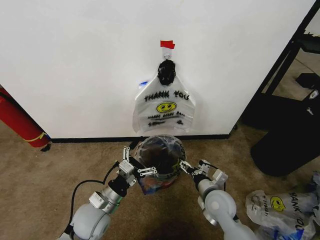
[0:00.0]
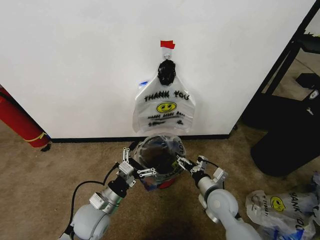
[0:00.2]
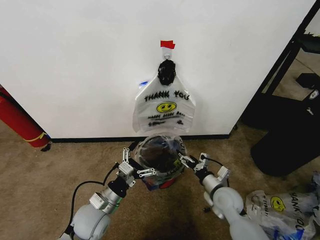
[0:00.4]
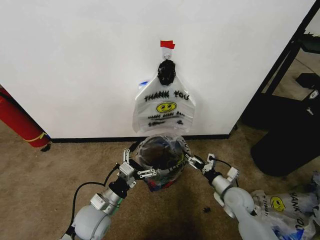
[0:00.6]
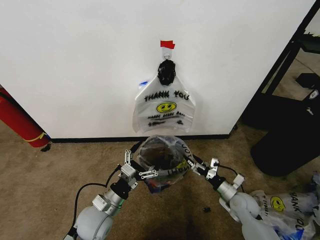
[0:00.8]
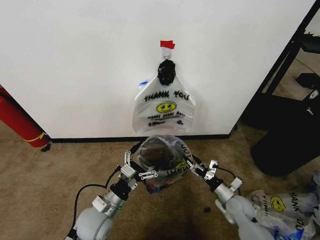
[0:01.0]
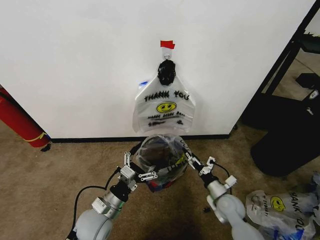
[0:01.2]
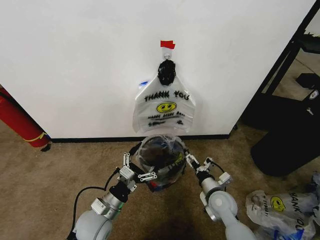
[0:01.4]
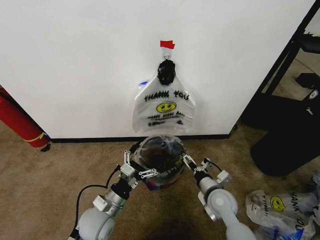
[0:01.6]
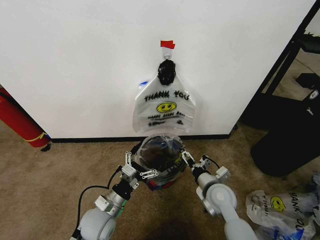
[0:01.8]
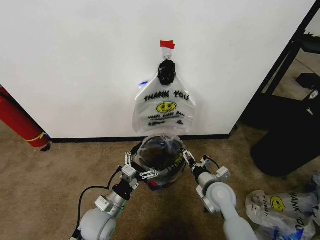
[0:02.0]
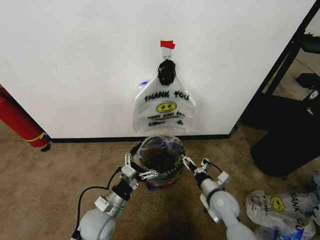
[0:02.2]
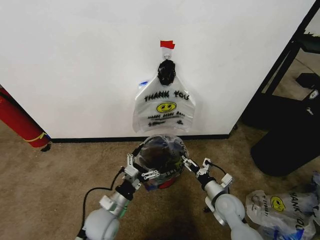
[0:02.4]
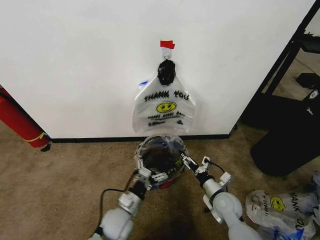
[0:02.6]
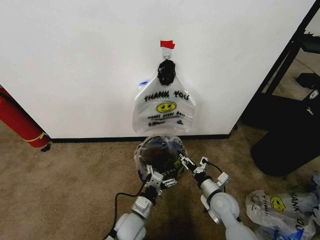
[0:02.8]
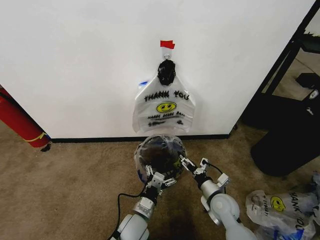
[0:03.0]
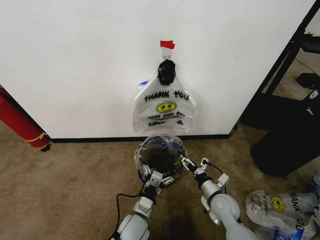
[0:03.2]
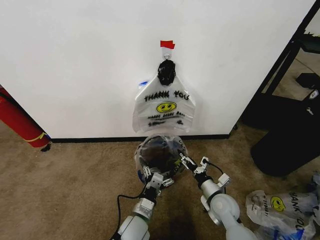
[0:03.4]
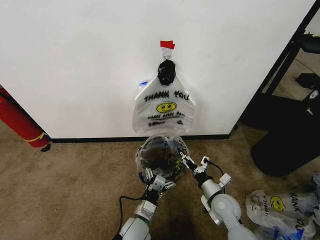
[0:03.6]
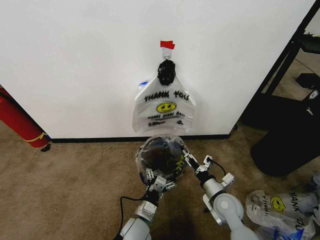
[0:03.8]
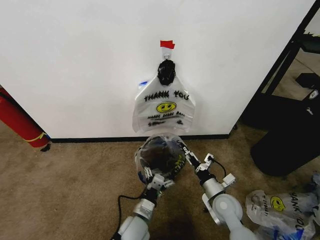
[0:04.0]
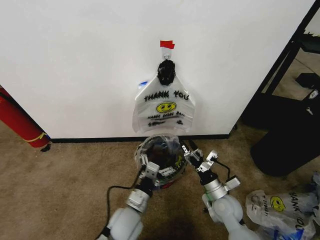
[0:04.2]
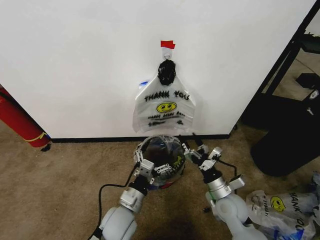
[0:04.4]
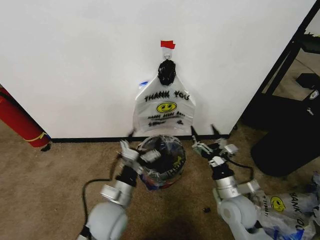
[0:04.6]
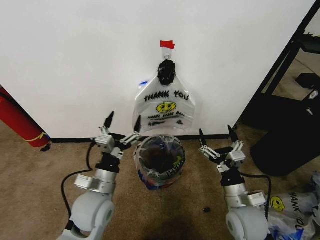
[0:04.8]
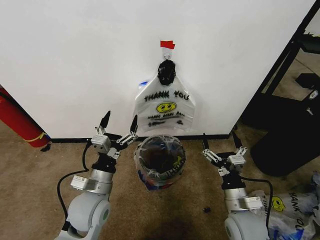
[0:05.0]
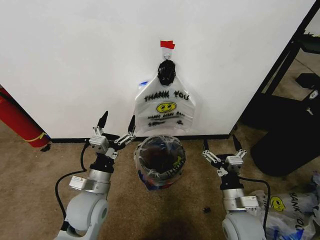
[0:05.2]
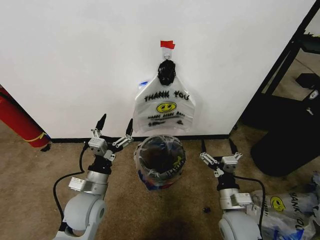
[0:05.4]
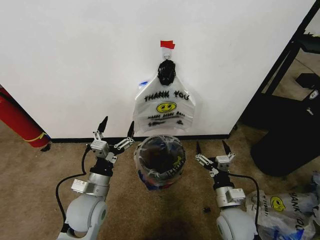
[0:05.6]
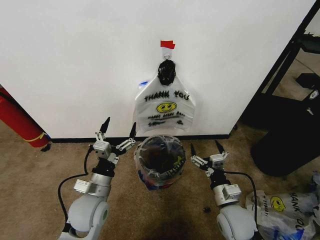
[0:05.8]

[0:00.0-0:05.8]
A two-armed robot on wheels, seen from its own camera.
Task of the whole recording: Pick up the garbage bag from the wall and place it over the trash bin.
0:00.0 to 0:01.4: The right gripper moves downward, approximately 5 cm, and moves roughly 10 cm to the right and comes back.
0:01.4 to 0:02.8: The left gripper heads to the right and downward, covering some 10 cm.
0:02.8 to 0:04.4: The left gripper heads upward, covering roughly 10 cm. The right gripper ends up about 5 cm from where it was.
0:04.4 to 0:05.8: The left gripper goes about 10 cm to the left and upward.

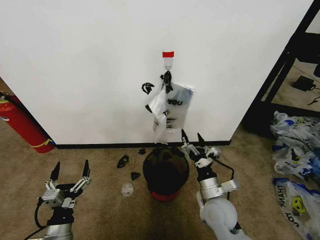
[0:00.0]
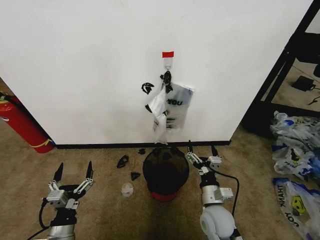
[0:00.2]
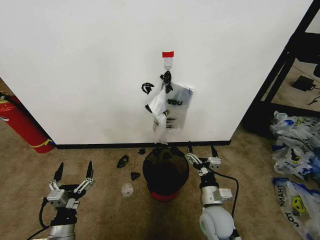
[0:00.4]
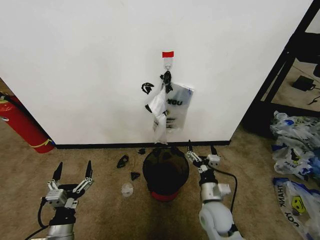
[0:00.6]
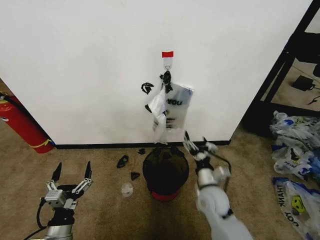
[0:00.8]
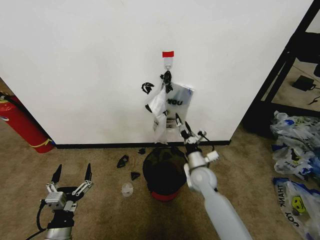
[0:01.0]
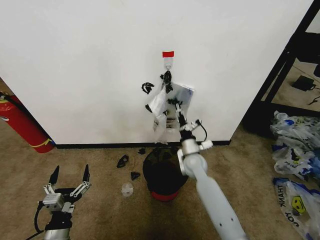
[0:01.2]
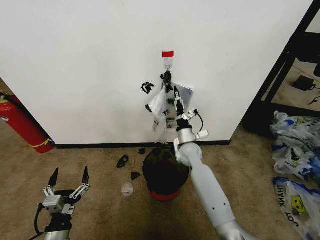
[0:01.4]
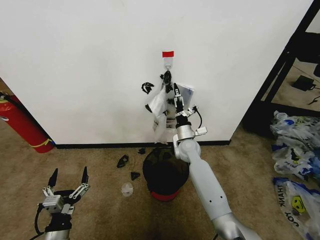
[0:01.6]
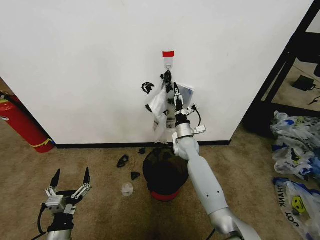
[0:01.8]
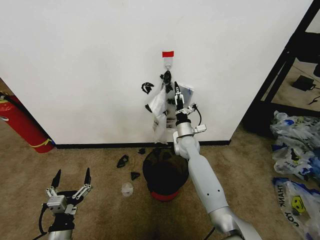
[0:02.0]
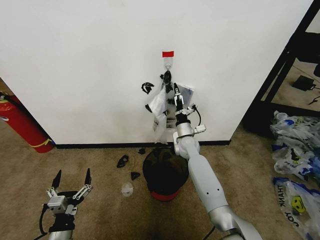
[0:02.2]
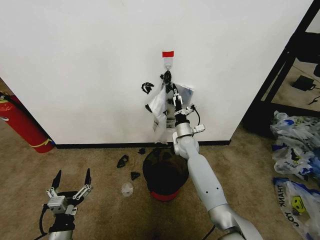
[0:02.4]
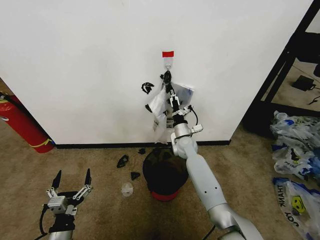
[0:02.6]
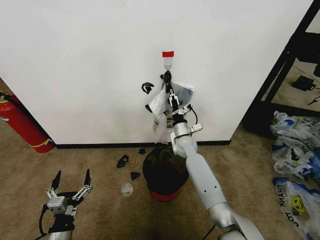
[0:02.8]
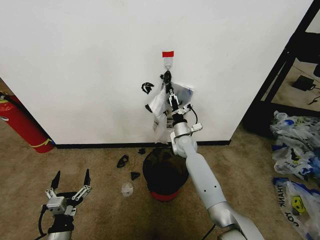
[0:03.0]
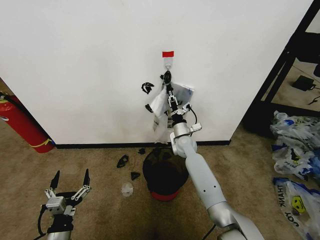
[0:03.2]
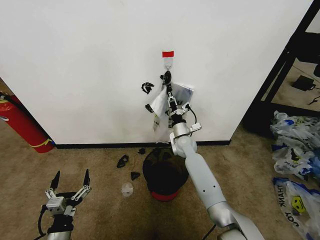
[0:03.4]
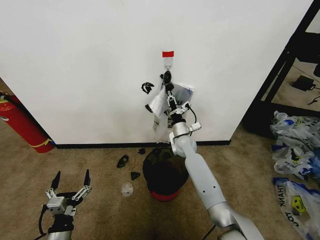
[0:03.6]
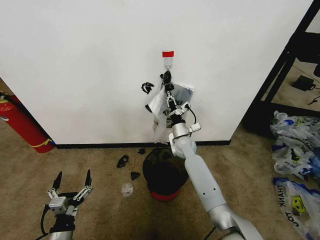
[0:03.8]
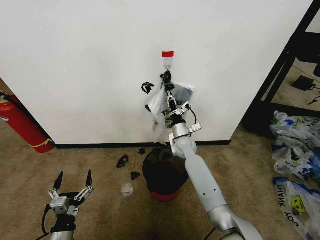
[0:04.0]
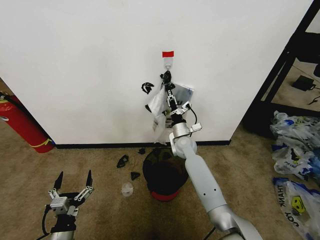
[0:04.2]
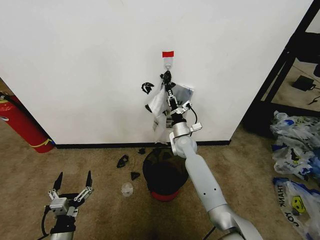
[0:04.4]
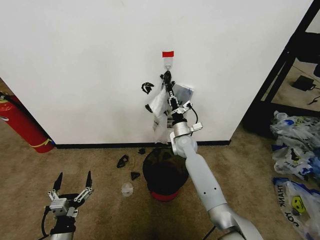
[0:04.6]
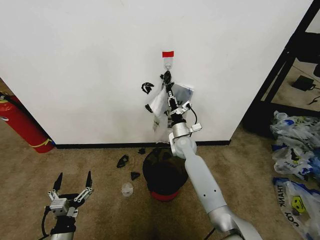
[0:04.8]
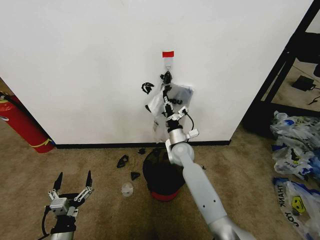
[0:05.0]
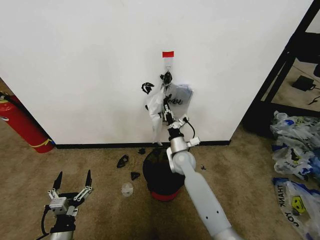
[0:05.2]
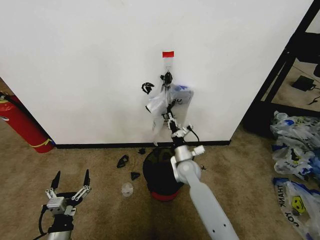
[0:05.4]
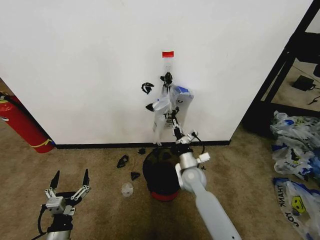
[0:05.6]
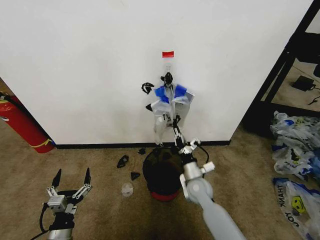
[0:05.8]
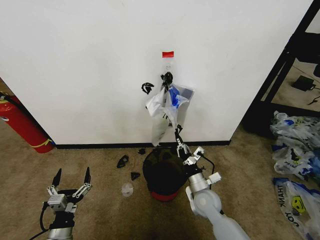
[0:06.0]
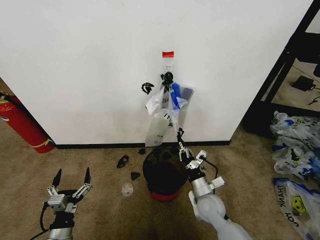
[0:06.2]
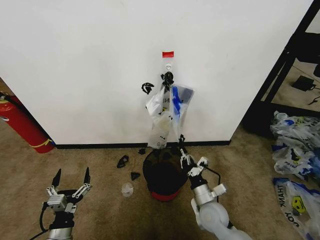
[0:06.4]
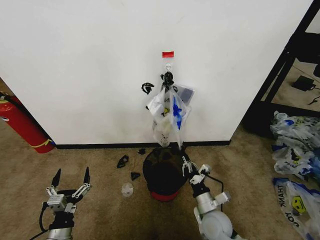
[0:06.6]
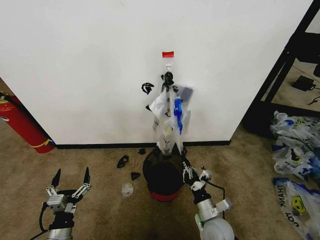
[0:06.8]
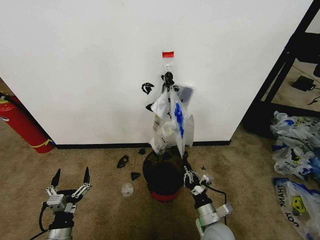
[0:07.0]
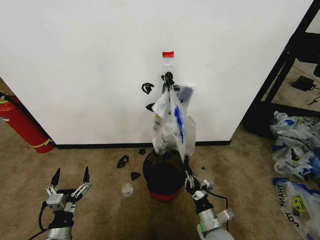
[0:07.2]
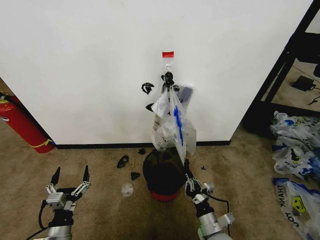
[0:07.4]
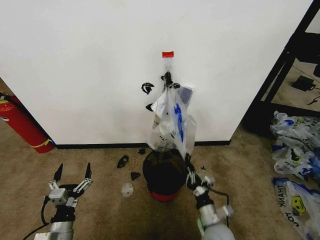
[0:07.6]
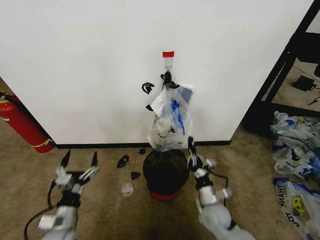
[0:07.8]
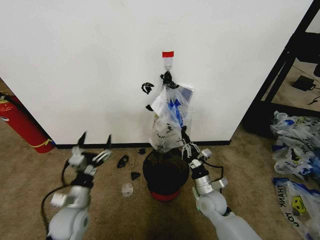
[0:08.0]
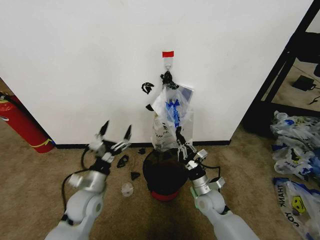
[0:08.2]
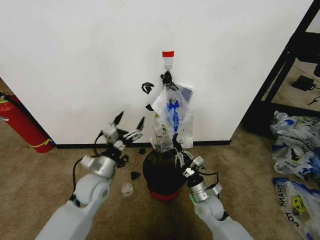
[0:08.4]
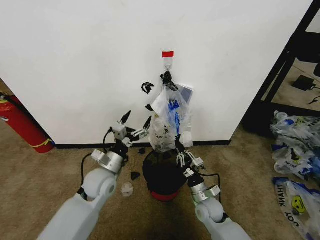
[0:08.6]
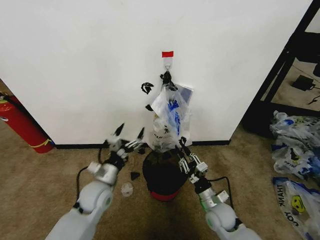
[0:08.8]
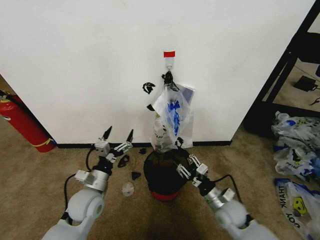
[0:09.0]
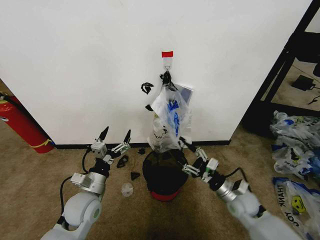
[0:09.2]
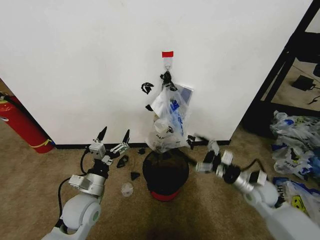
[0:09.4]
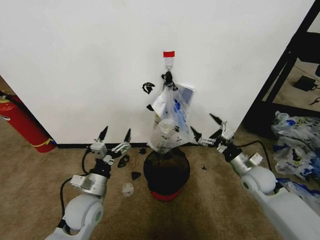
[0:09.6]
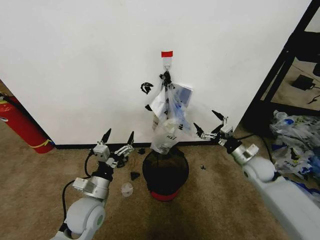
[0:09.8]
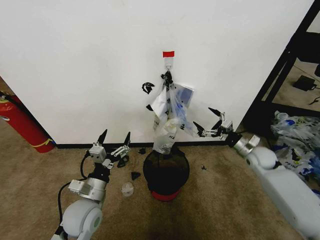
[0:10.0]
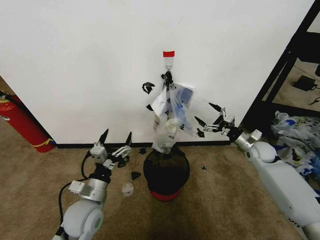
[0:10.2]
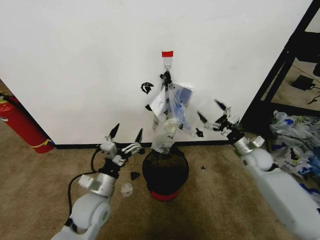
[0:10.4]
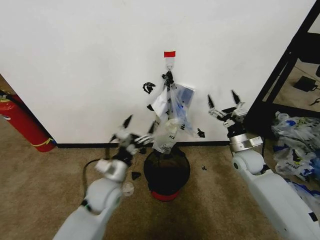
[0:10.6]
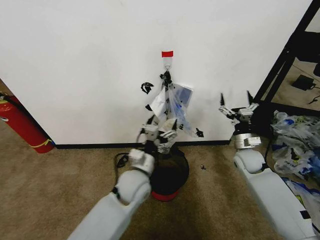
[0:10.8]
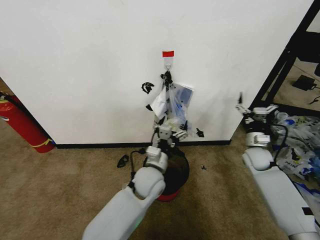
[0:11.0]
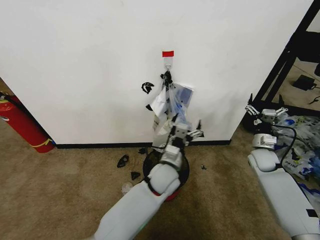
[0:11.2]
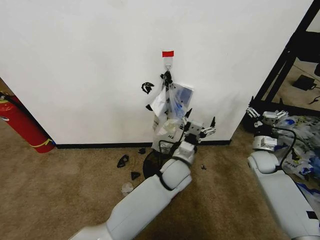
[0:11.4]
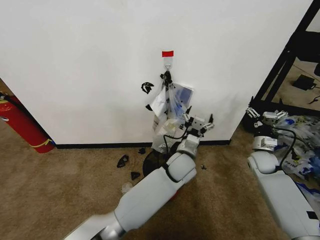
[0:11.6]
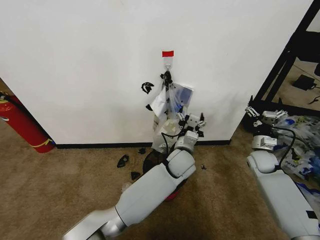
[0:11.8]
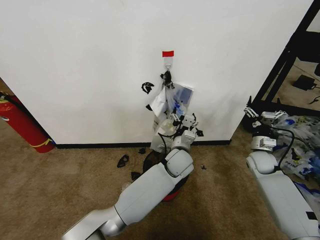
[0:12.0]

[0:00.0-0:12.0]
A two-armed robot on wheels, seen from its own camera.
Task of the whole recording: Pick up the garbage bag from the wall and place it over the trash bin.
0:01.6 to 0:03.0: The right gripper closes up.
0:03.0 to 0:04.4: The right gripper closes its fingers.
0:04.4 to 0:06.0: The right gripper moves backward, approximately 20 cm.
0:06.0 to 0:07.6: The right gripper is displaced backward by some 10 cm.
0:07.6 to 0:09.0: The left gripper travels forward, upward and to the right by about 15 cm. The right gripper shifts approximately 10 cm to the right and forward, and opens up.
0:09.0 to 0:10.4: The right gripper is displaced forward, to the right and upward by some 20 cm, and opens its fingers.
0:10.4 to 0:12.0: The left gripper heads to the right and forward, covering roughly 30 cm.

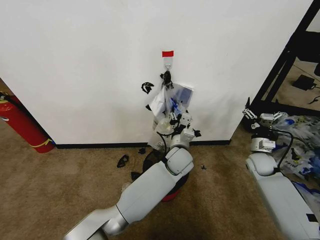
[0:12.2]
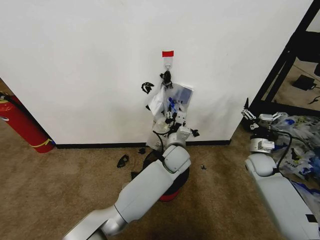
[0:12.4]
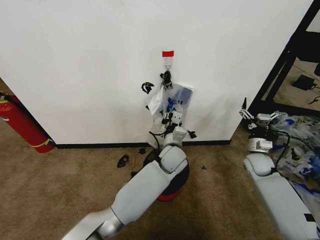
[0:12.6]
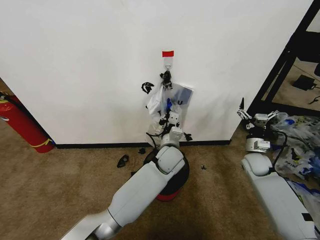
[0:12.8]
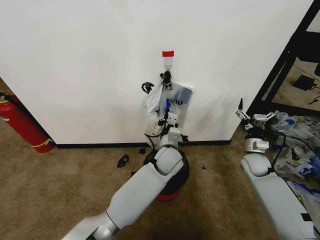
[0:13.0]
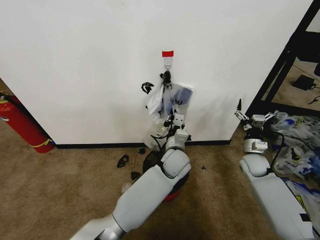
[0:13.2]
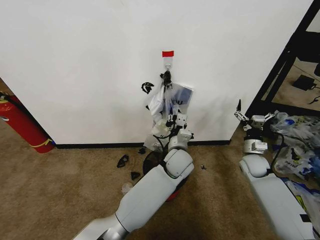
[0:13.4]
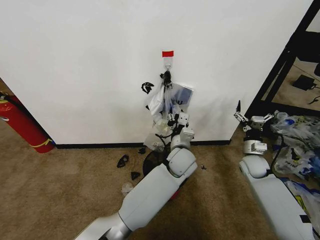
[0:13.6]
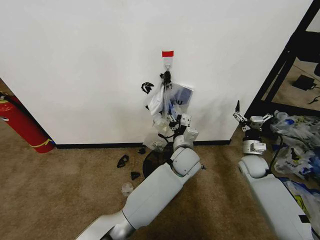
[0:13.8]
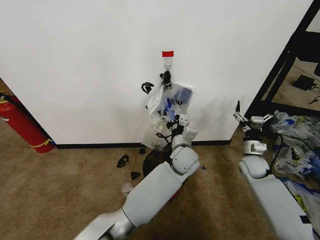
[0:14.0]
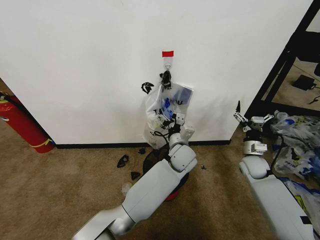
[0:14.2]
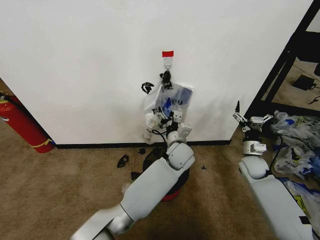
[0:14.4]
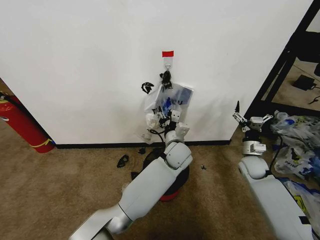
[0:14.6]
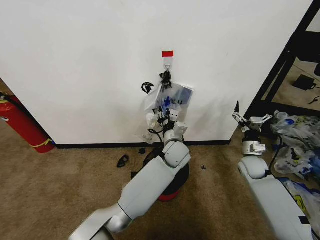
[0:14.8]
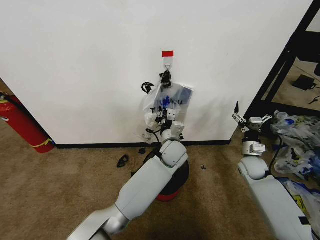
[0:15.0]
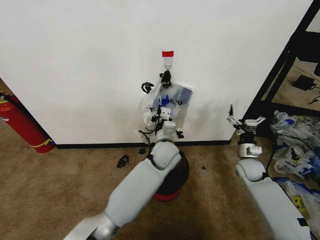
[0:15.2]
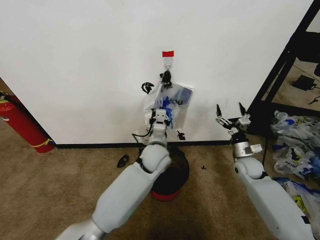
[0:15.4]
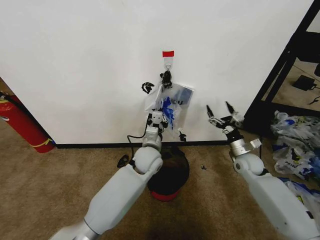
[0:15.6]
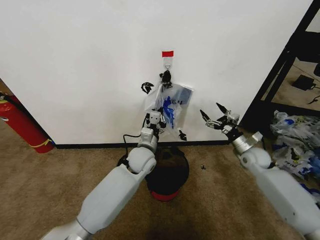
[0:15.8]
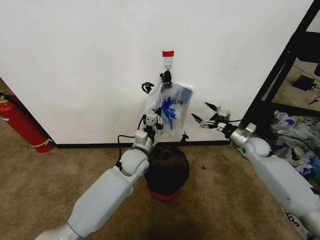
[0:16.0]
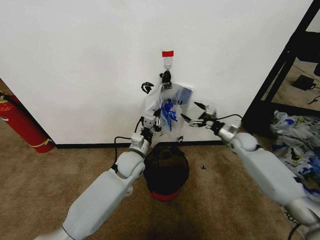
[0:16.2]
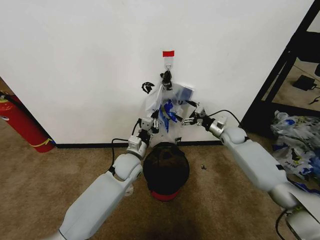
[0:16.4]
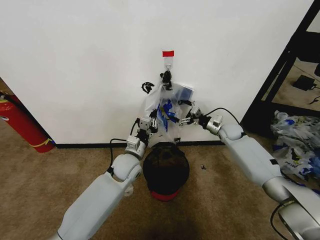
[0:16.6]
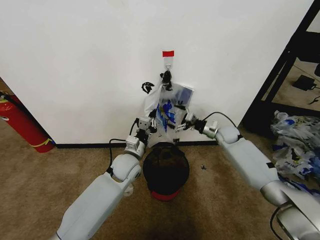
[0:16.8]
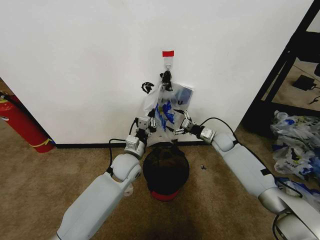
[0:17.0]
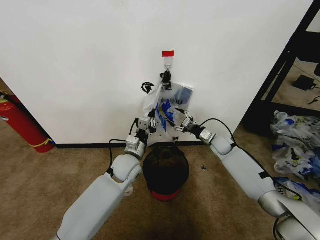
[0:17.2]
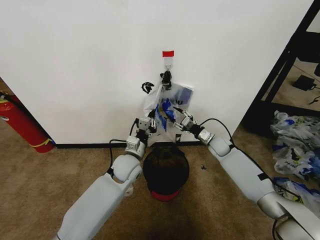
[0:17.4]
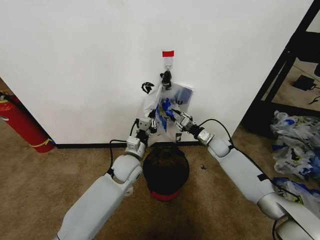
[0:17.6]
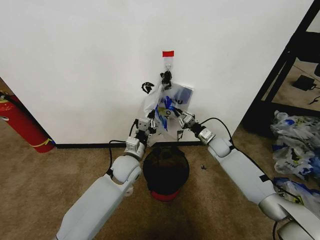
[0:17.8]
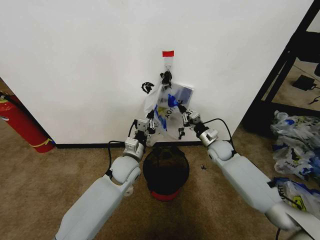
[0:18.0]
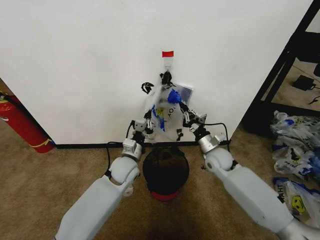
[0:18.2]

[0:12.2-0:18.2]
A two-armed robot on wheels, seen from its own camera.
Task of the whole recording: Pick up the garbage bag from the wall and place it over the trash bin.
0:12.2 to 0:13.8: The left gripper closes, then reopens.
0:13.8 to 0:15.2: The left gripper moves to the left, roughly 5 cm, and closes.
0:15.2 to 0:16.6: The right gripper shifts some 15 cm forward. Meanwhile the left gripper moves to the left, about 15 cm.
0:16.6 to 0:18.2: The right gripper heads backward and to the left, covering about 15 cm, and closes up.
